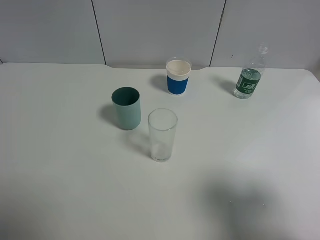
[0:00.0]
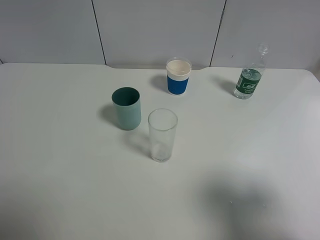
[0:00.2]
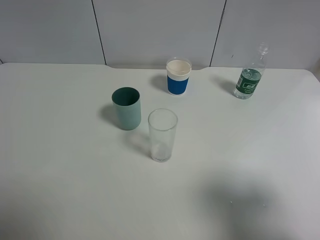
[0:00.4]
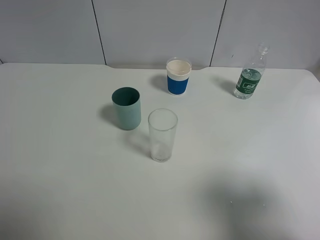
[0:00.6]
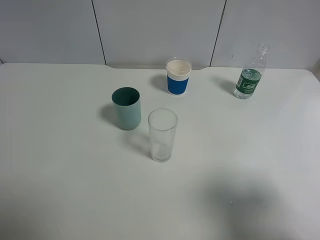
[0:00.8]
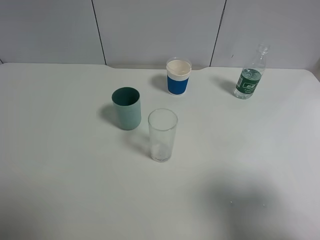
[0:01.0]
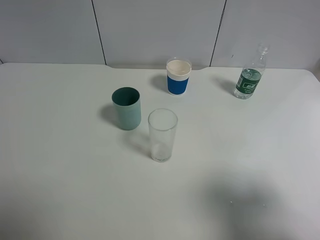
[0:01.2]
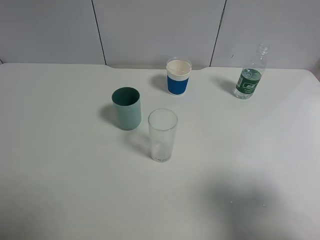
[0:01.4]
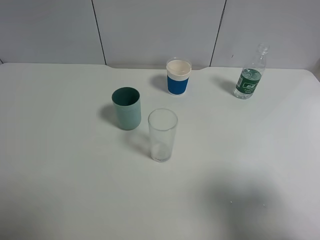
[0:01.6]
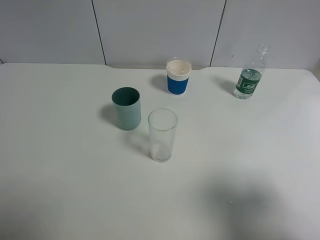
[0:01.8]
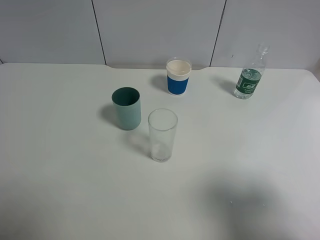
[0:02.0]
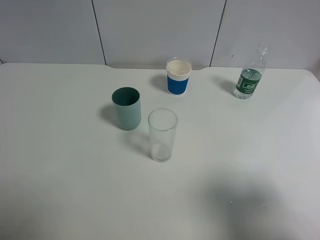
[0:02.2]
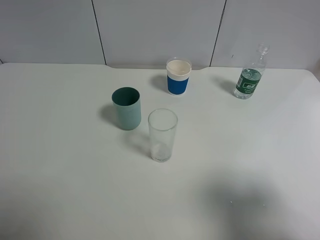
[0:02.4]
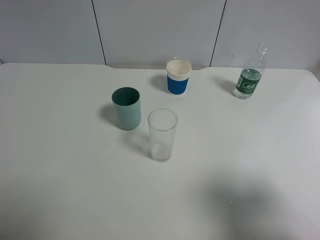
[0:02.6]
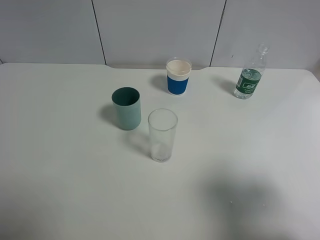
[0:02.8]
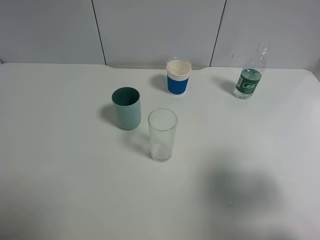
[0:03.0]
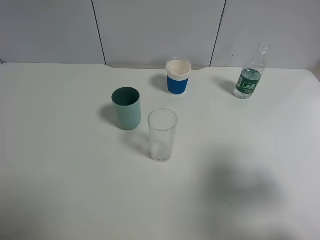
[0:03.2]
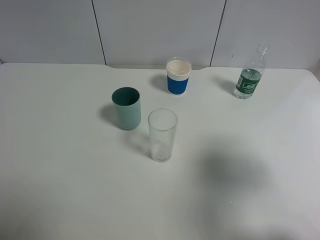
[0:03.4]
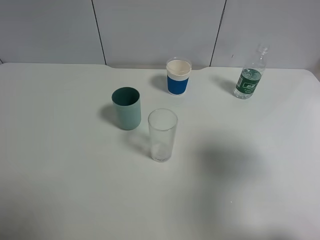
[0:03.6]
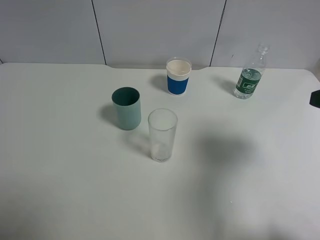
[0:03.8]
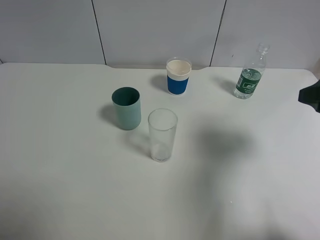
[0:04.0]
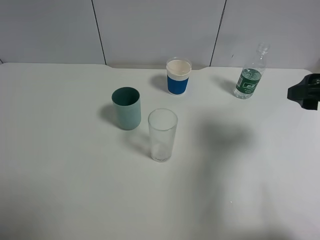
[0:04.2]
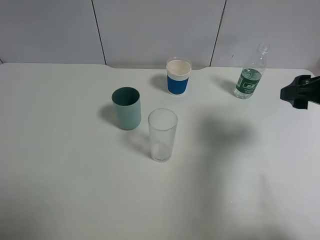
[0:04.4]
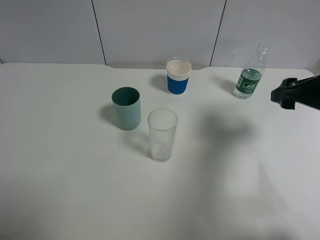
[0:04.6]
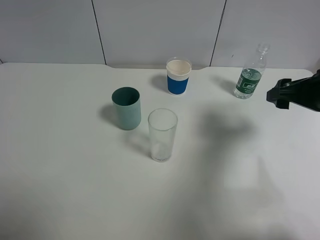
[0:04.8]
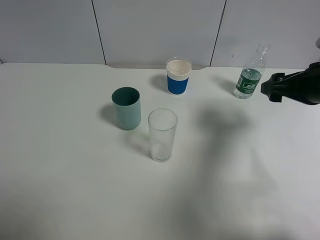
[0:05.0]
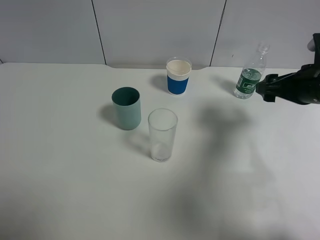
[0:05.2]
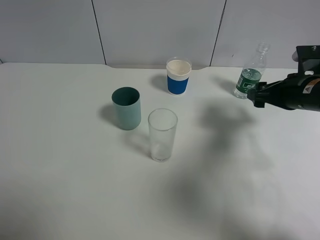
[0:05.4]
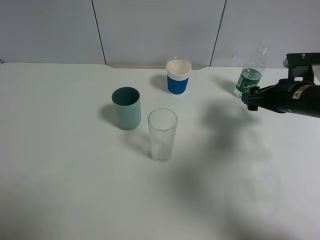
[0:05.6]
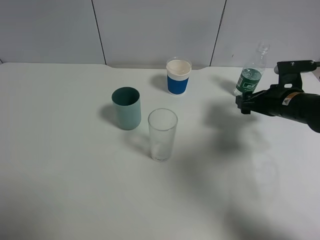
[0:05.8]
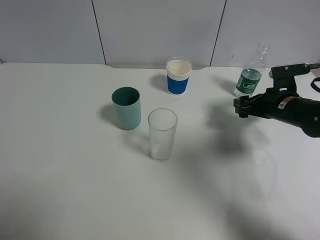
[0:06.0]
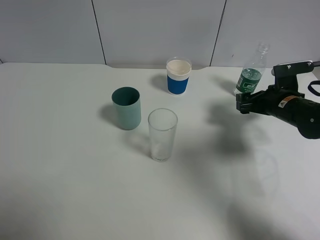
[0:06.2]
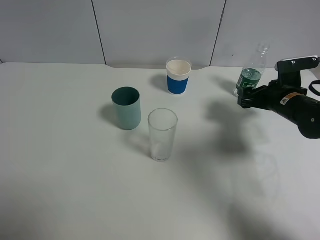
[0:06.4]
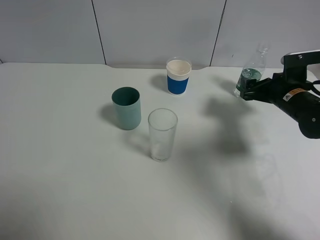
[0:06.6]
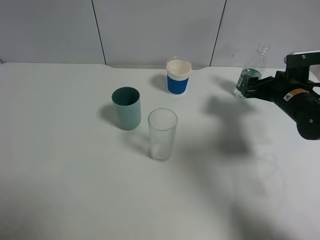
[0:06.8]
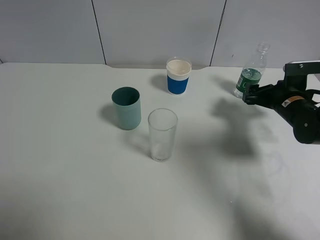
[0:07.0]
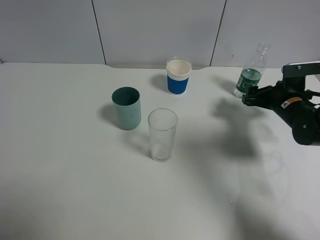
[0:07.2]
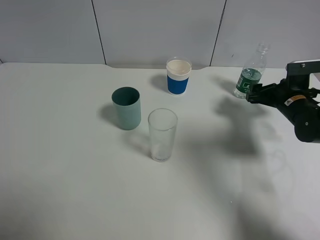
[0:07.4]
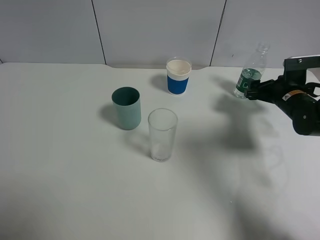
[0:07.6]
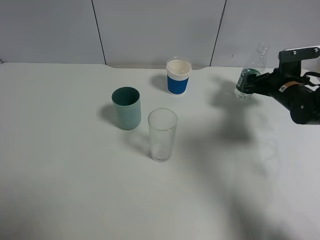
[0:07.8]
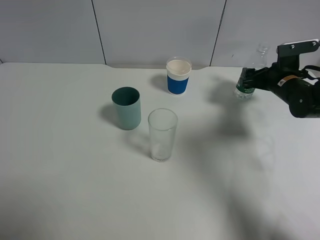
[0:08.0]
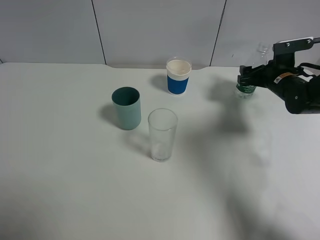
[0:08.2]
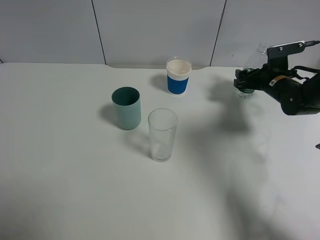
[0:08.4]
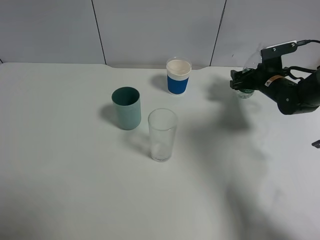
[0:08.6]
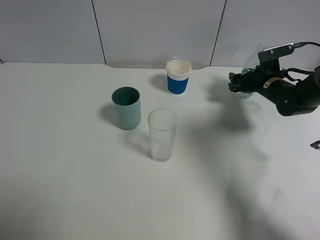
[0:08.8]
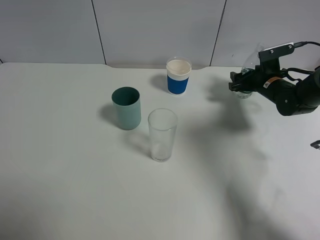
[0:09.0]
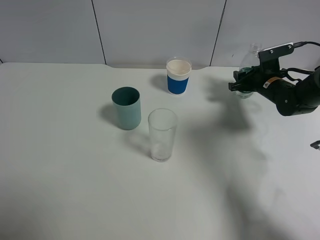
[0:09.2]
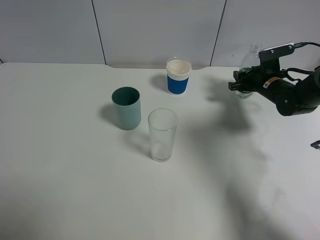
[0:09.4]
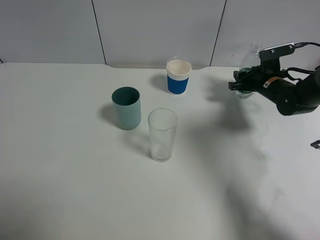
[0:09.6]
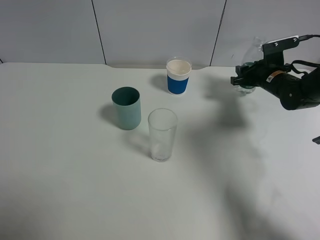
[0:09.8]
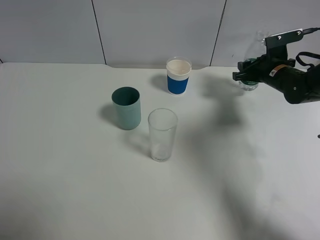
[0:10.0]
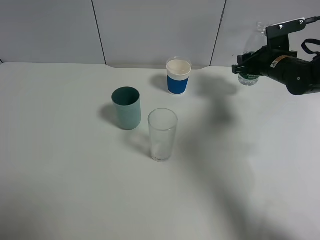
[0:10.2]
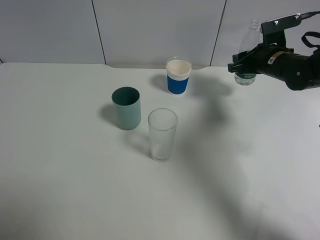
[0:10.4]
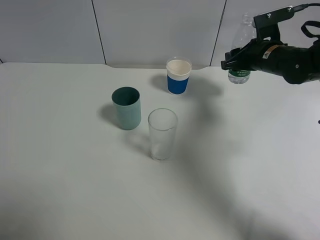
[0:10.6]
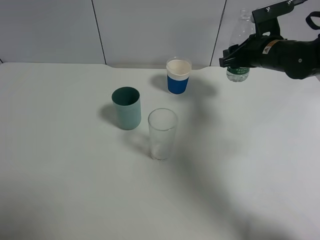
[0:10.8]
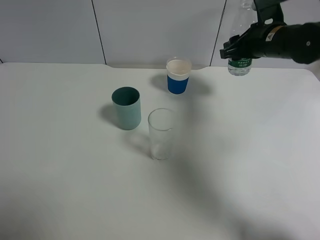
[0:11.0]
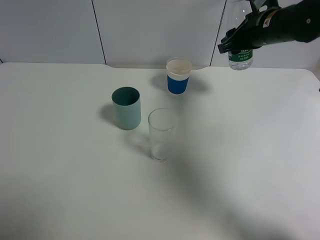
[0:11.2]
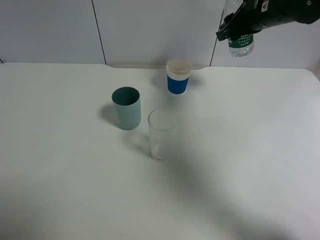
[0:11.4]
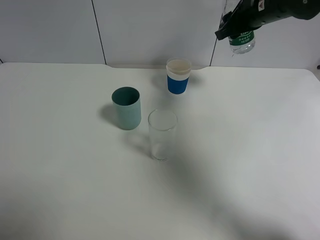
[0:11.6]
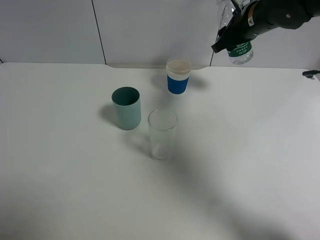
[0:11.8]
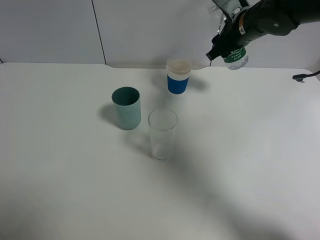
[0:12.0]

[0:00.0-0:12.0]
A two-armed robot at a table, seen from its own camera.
Task of the whole recording: use a gripper to hold the bottle of the drink and pour it into a random cup.
Step, 0:00.0 to 0:09.2: Grasp the mineral water bottle with the right gripper.
0:01.6 to 0:03.0: The right gripper is displaced forward by approximately 5 cm.
0:03.0 to 0:04.4: The right gripper is displaced forward by roughly 15 cm.
0:04.4 to 0:06.0: The right gripper is displaced downward and forward by roughly 15 cm.
0:06.0 to 0:07.6: The grippers make only small movements.
0:07.6 to 0:09.0: The right gripper travels forward by approximately 5 cm, and closes its fingers.
0:09.0 to 0:10.4: The right gripper shifts some 10 cm upward, and closes up.
0:10.4 to 0:12.0: The right gripper is displaced to the left and upward by about 10 cm.

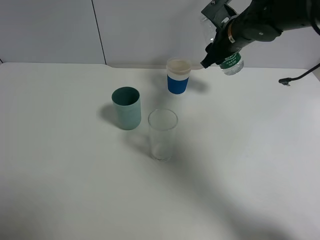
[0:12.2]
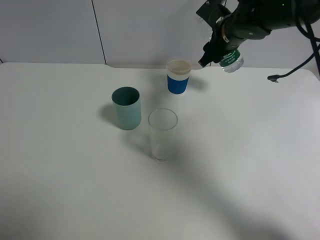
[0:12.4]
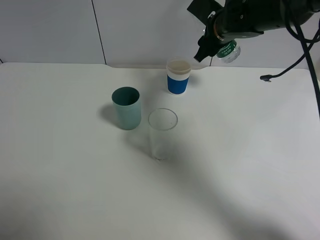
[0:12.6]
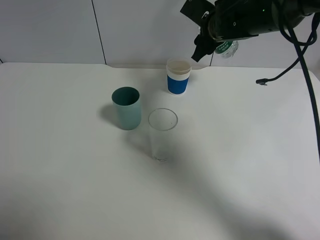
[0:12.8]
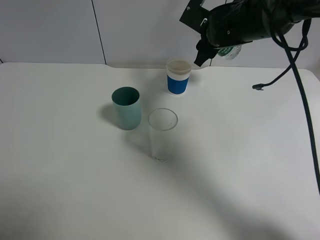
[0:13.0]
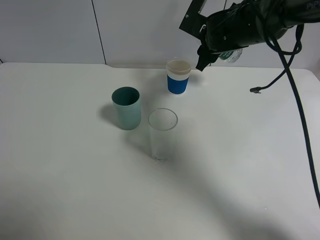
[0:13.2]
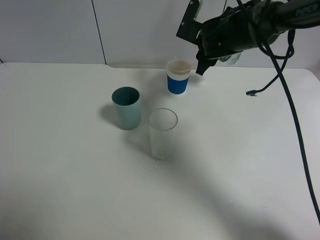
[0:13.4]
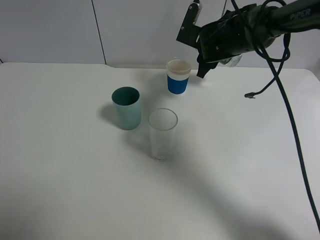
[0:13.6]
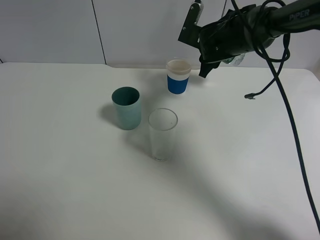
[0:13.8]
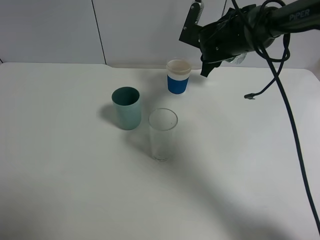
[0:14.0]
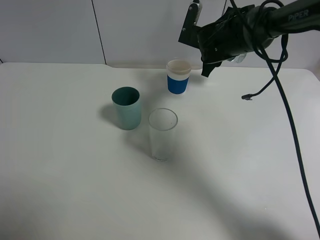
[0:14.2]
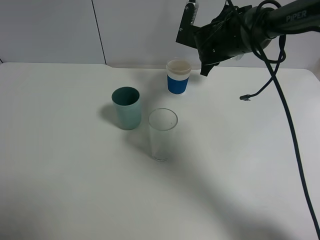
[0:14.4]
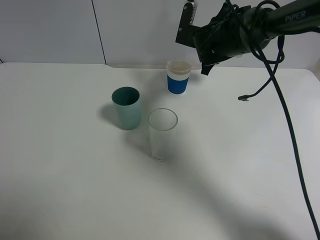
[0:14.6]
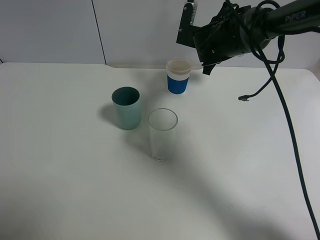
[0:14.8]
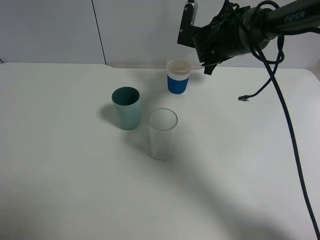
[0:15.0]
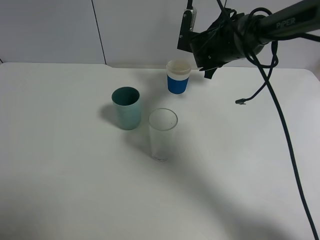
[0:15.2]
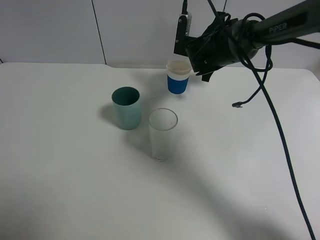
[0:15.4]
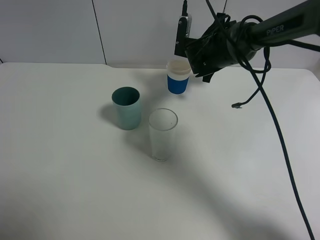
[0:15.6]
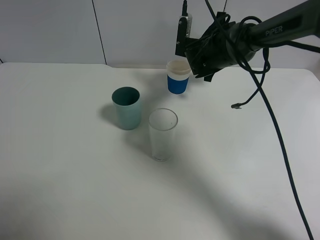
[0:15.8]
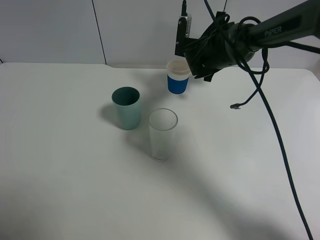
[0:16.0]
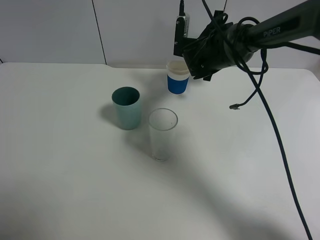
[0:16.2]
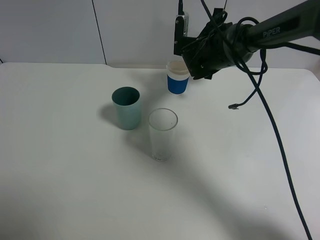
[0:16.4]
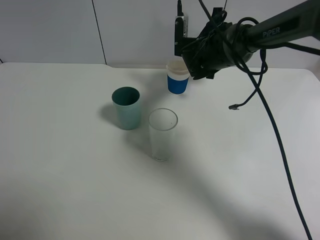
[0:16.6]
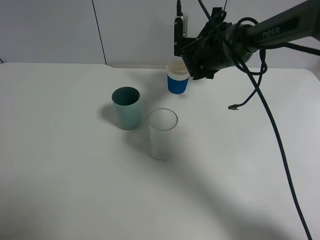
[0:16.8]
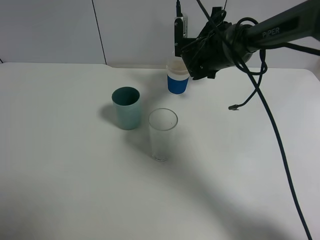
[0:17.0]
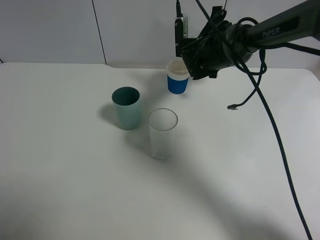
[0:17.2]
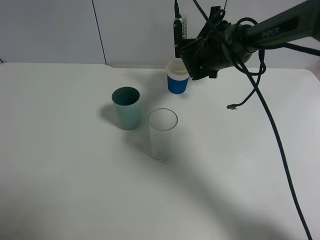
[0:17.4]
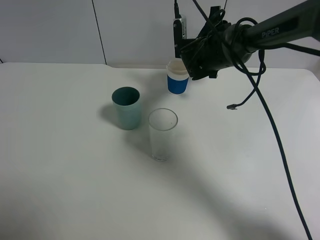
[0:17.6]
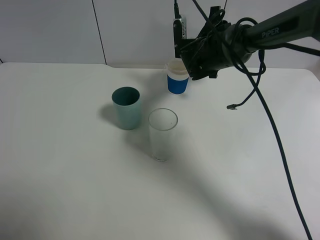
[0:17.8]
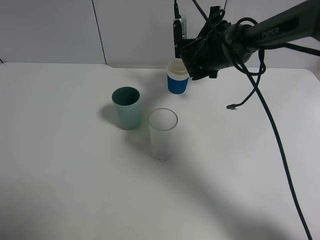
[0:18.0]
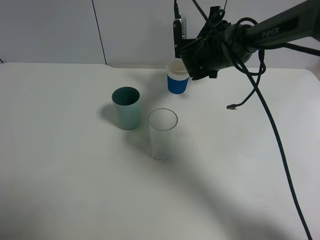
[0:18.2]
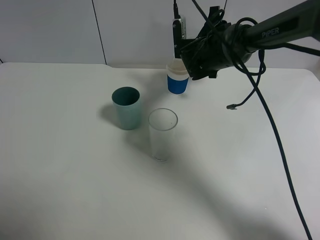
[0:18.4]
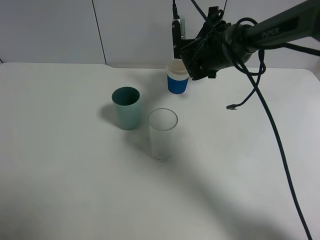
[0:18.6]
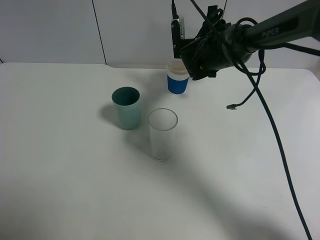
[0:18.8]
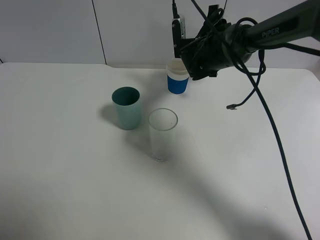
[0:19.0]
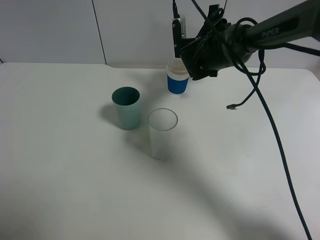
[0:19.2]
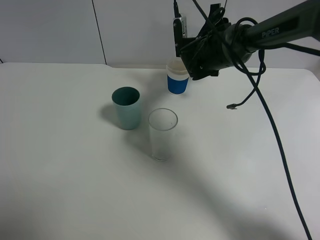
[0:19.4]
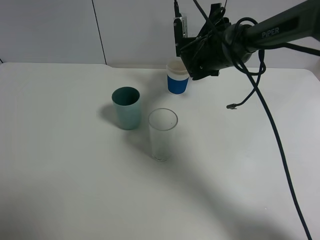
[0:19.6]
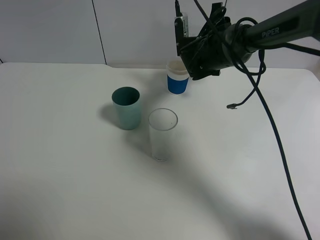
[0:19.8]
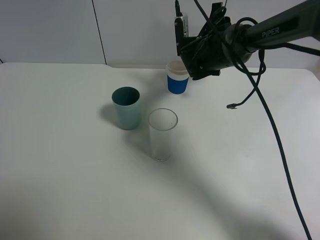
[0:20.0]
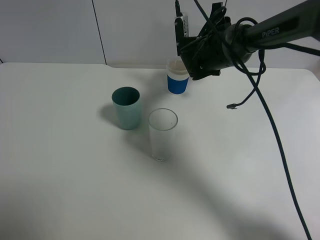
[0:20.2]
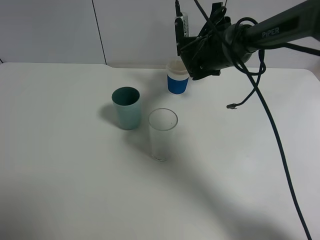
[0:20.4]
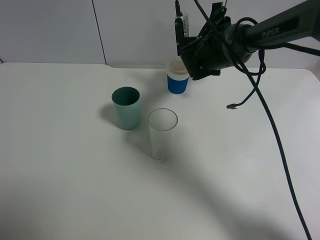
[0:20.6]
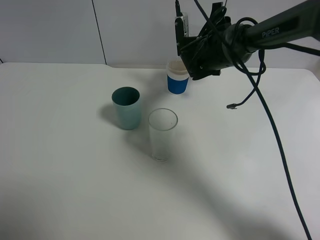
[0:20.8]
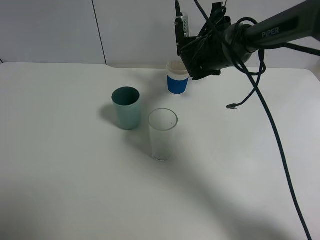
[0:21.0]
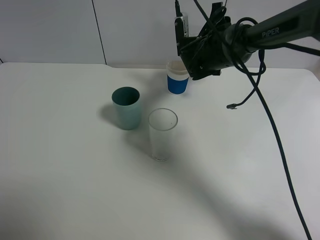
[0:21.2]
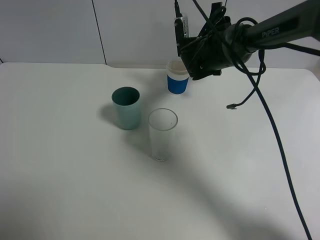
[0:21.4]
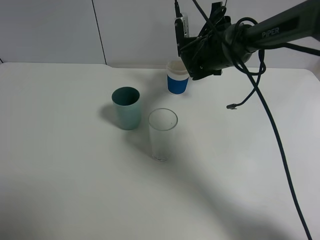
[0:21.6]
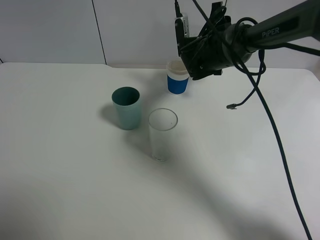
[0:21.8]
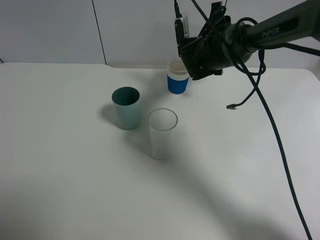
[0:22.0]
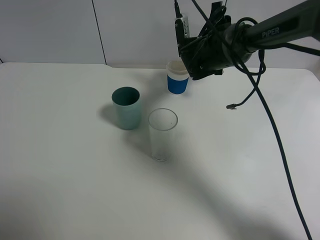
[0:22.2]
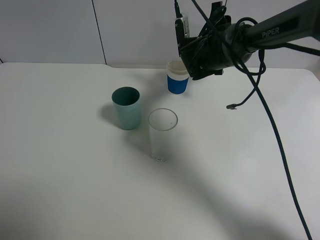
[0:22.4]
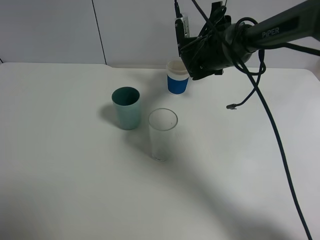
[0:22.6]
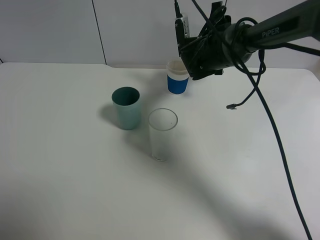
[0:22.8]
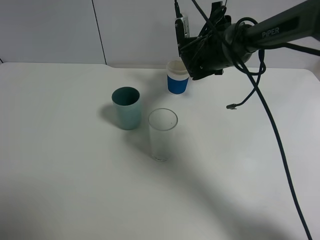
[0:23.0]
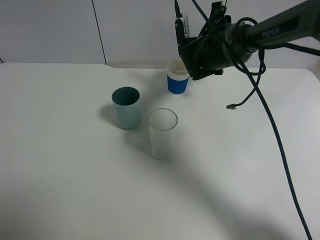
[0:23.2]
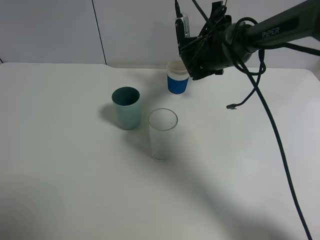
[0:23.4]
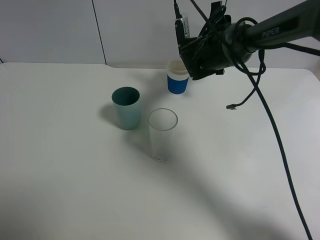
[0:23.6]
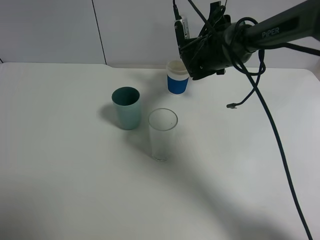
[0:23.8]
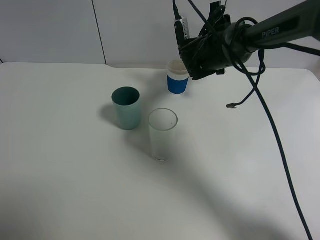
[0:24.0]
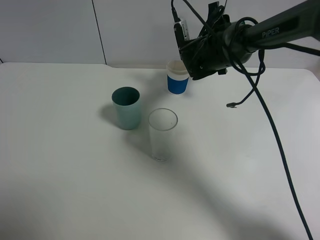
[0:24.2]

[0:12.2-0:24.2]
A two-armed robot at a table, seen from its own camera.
Task of the whole recording: use a gripper to hold the bottle of the drink and pour it into a random cup.
0:13.8 to 0:15.2: There are only small adjustments of the grippers.
0:15.2 to 0:18.2: There are only small adjustments of the grippers.
0:18.2 to 0:21.2: Both grippers stay put.
0:21.2 to 0:22.6: Neither gripper changes place.
0:22.6 to 0:24.2: The grippers move only a little.
